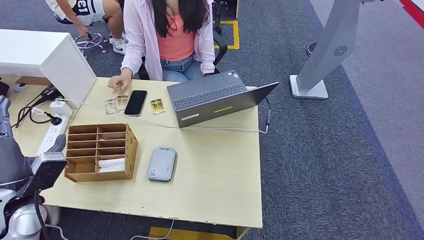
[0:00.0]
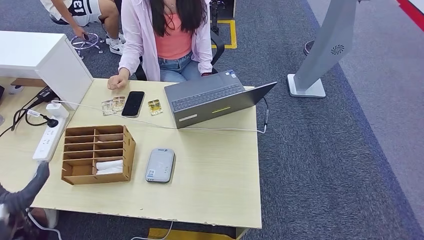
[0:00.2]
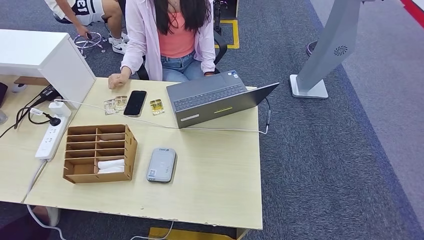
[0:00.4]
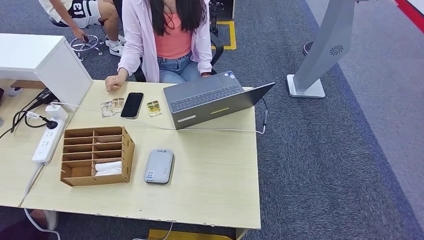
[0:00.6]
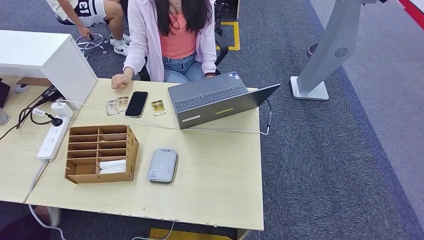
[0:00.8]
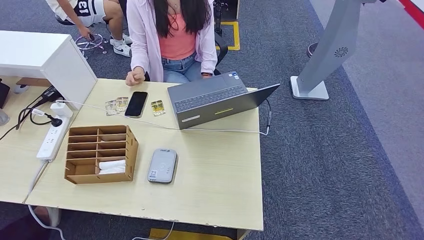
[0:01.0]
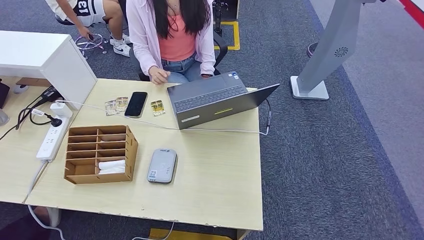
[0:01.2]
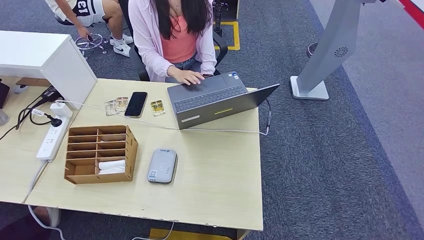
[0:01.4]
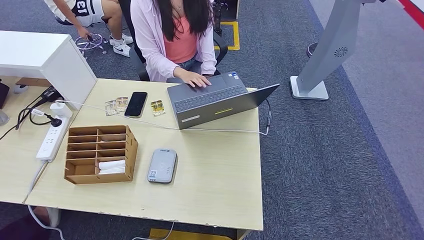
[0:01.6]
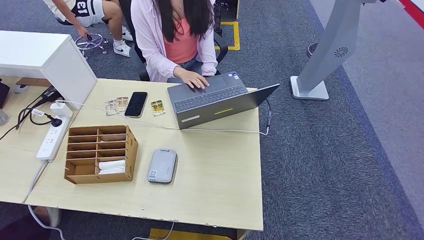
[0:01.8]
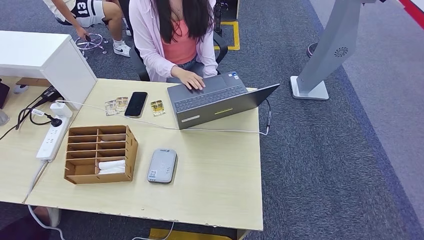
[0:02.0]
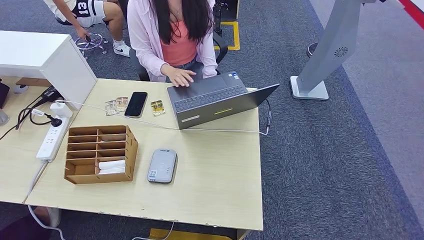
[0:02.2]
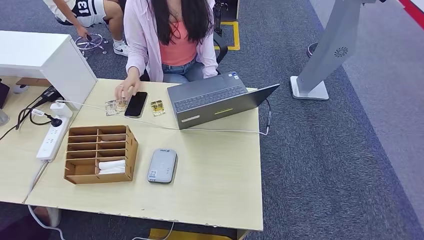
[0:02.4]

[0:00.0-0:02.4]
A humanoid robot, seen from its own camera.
0:00.0 to 0:01.2: The left hand travels downward and backward by some 40 cm.
0:01.2 to 0:02.4: The right hand changes place by roughly 5 cm.
